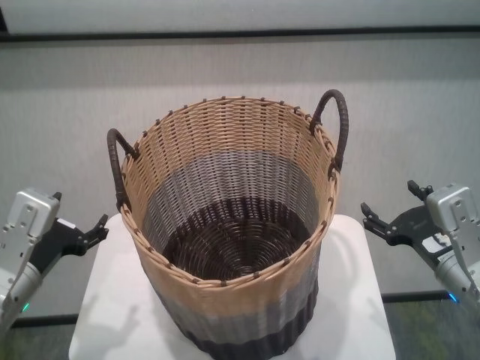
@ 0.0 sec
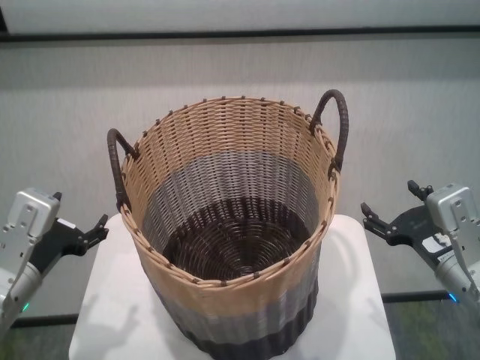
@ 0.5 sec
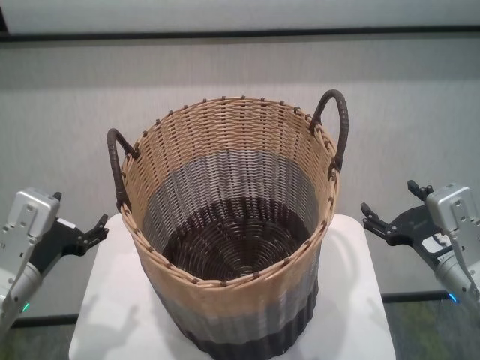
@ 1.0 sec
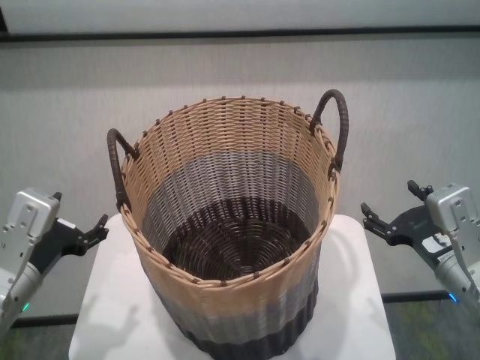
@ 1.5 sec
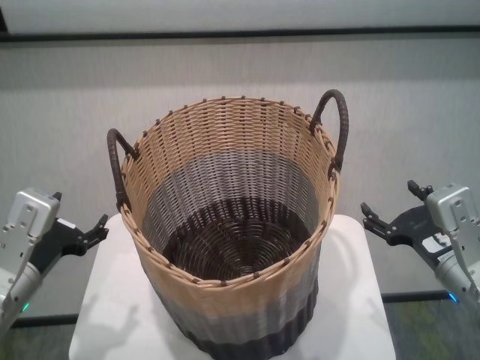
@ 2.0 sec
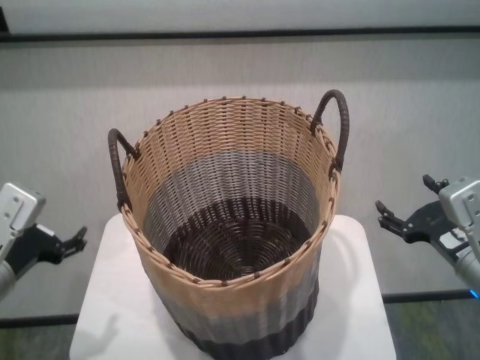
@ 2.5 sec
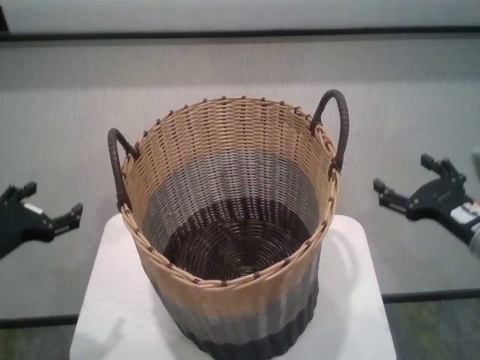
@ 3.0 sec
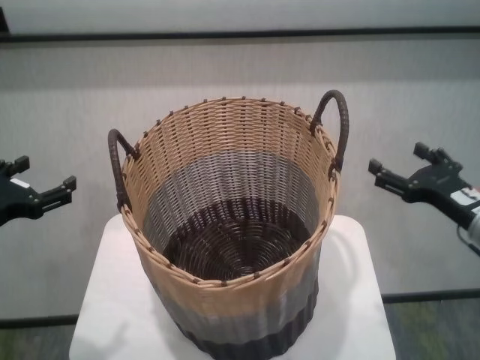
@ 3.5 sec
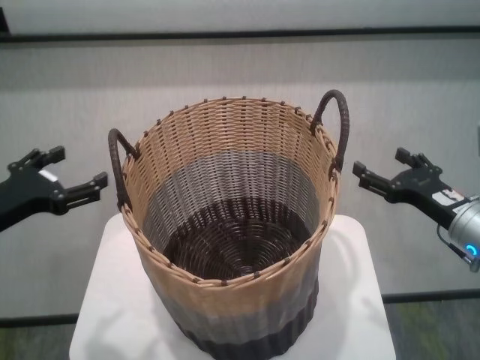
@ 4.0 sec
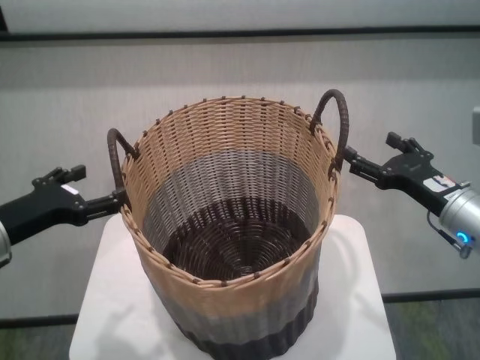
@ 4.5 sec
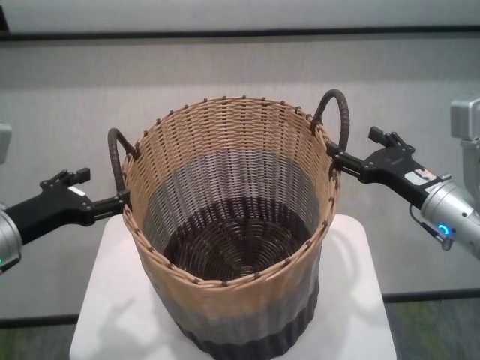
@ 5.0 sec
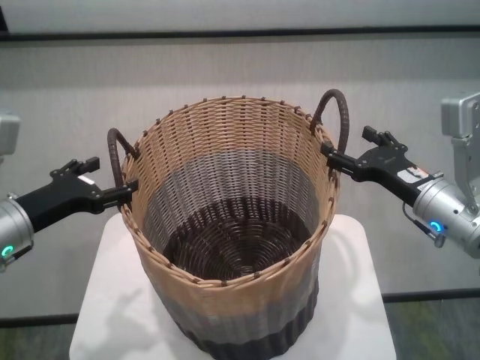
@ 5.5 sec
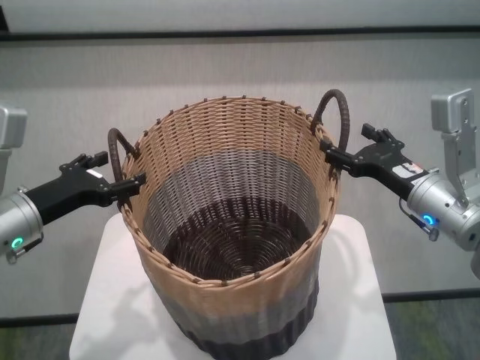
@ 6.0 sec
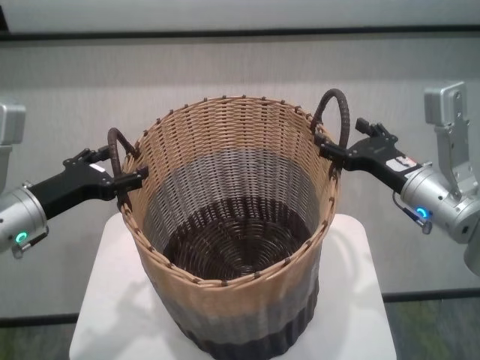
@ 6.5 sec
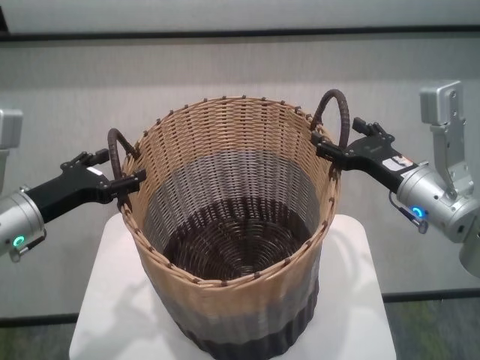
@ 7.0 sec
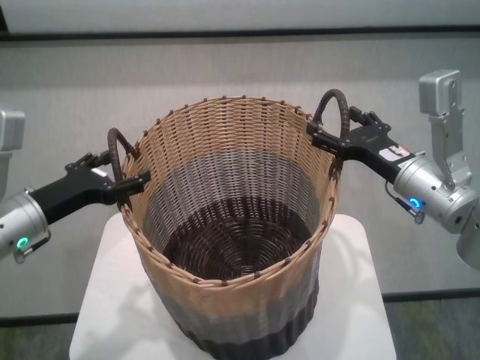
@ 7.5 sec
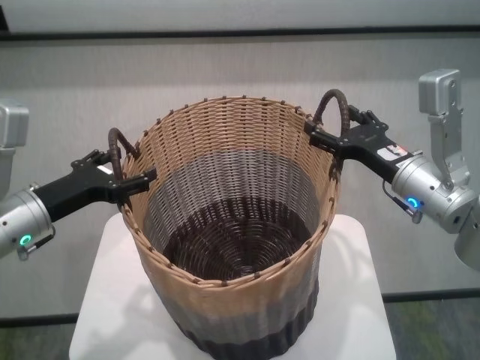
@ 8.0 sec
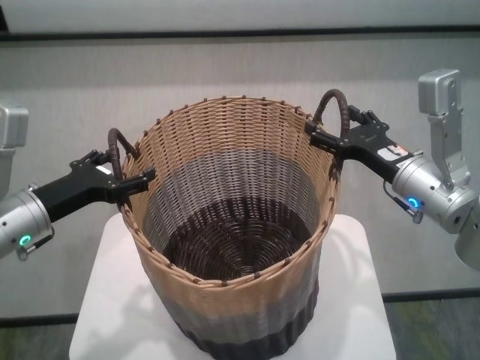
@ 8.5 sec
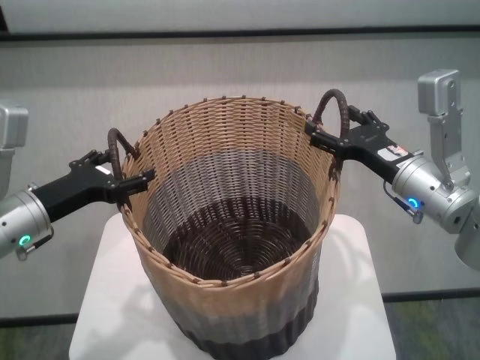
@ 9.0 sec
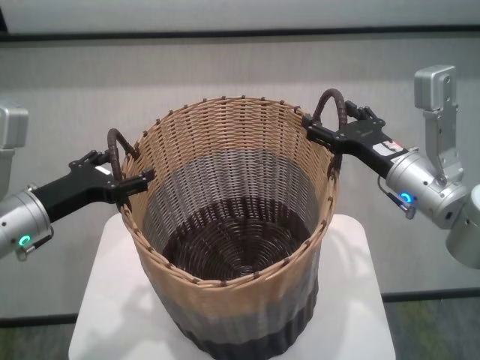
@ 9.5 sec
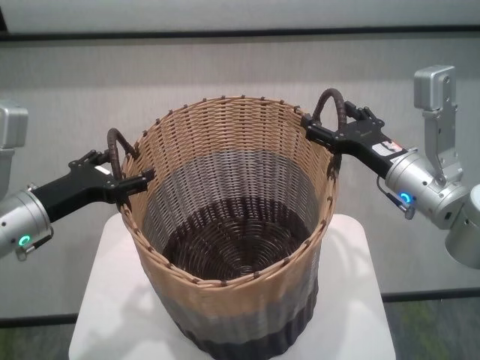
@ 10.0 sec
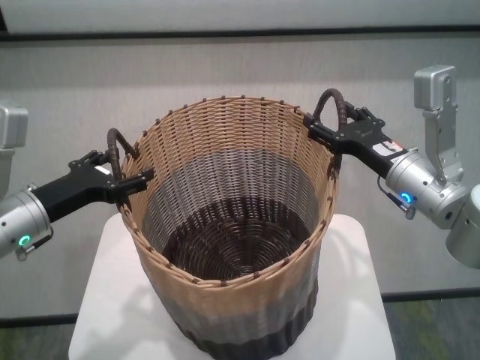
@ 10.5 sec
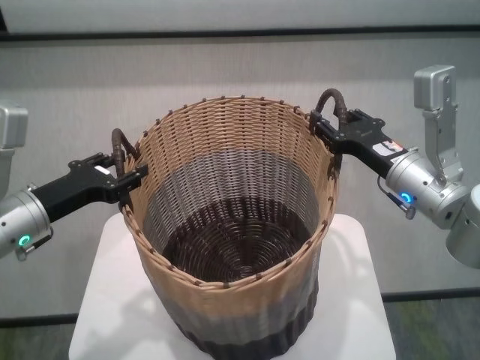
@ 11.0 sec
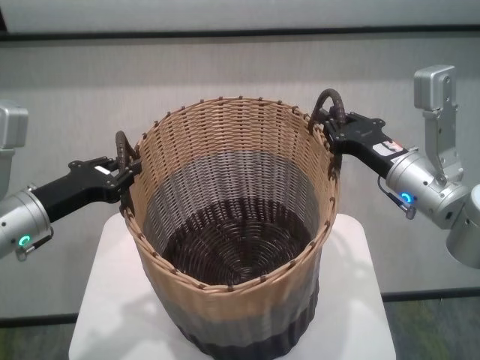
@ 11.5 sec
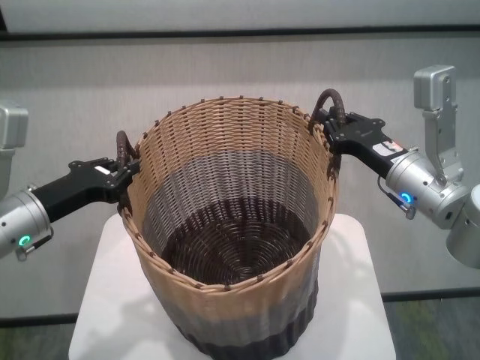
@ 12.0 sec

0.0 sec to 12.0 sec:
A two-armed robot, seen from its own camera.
Task of the whole recording: carry the clothes basket in coordination with both hands.
Step, 0.0 sec to 12.0 sec: Grasp the basket with both grippers.

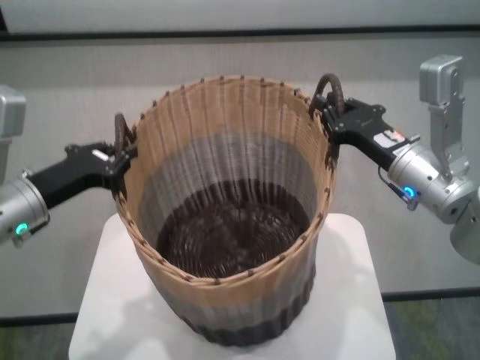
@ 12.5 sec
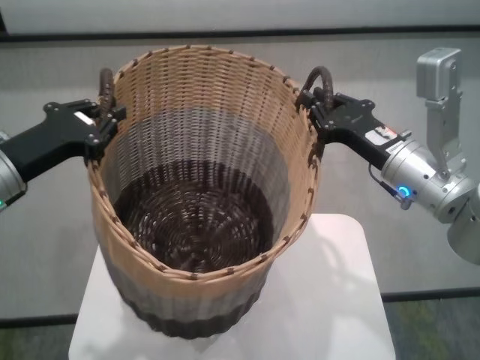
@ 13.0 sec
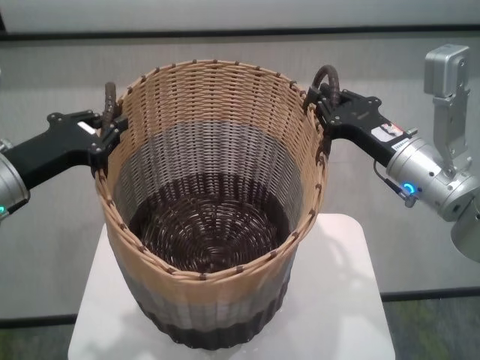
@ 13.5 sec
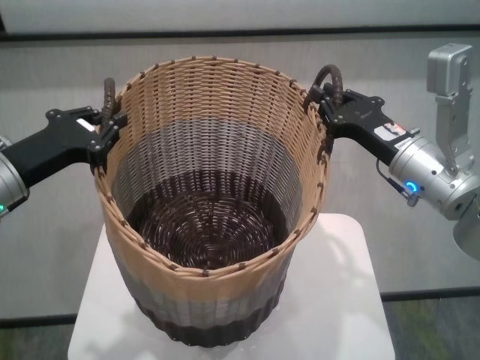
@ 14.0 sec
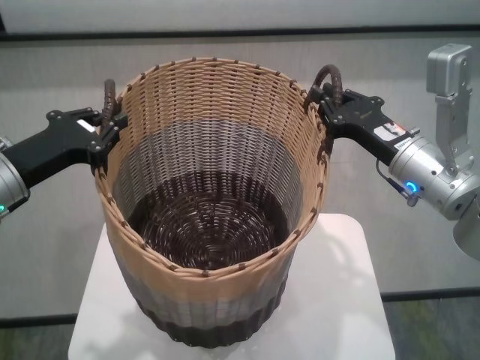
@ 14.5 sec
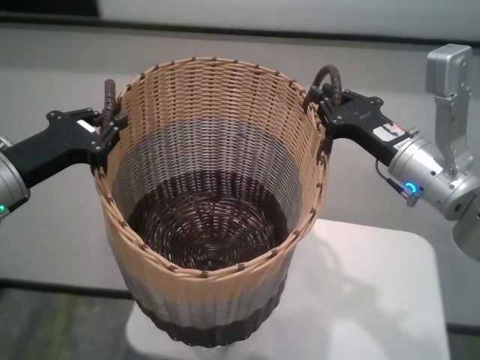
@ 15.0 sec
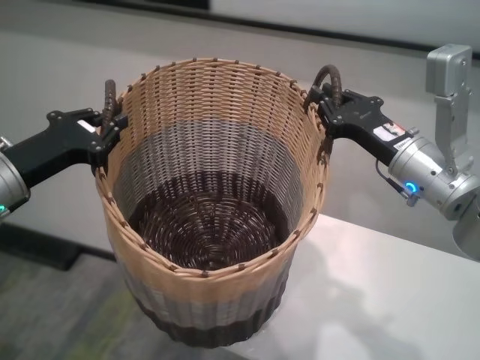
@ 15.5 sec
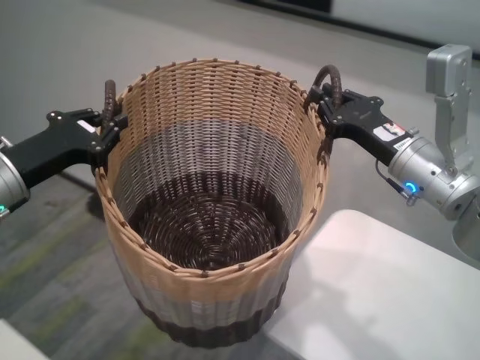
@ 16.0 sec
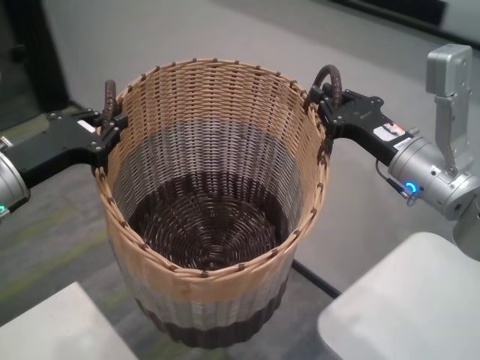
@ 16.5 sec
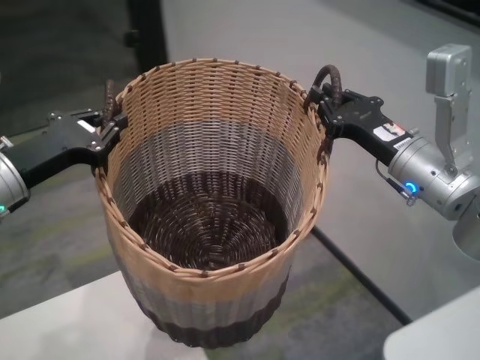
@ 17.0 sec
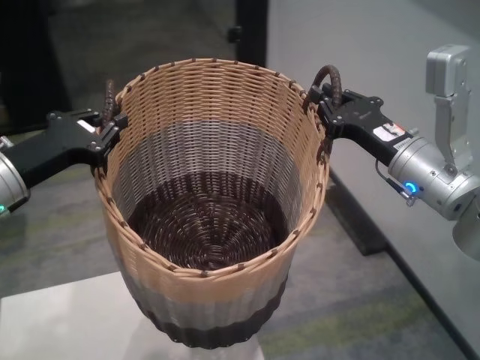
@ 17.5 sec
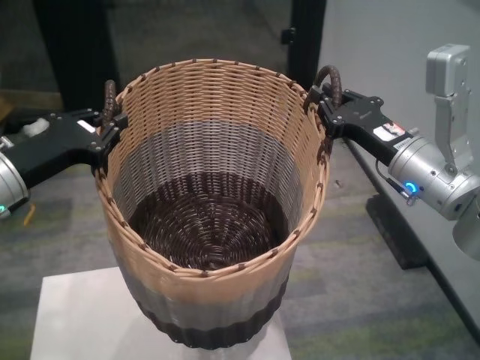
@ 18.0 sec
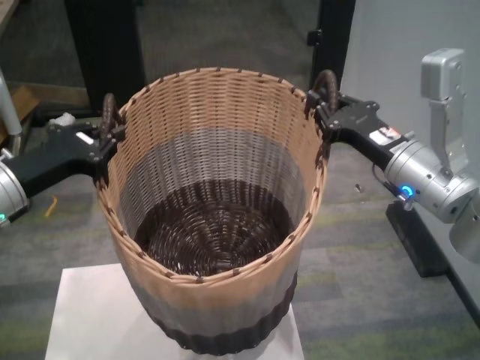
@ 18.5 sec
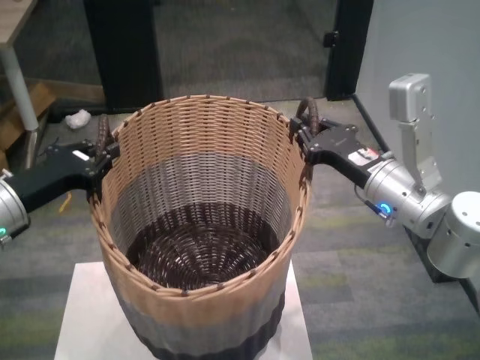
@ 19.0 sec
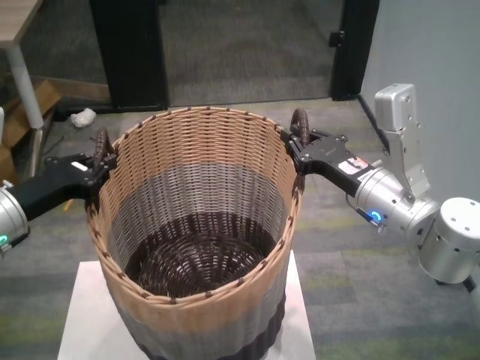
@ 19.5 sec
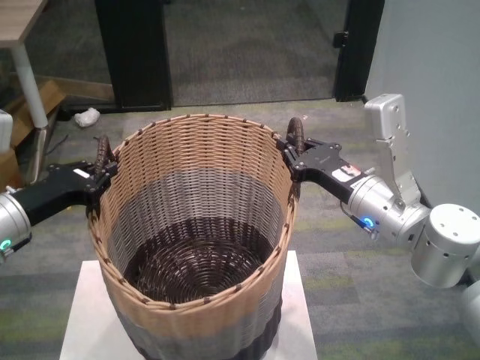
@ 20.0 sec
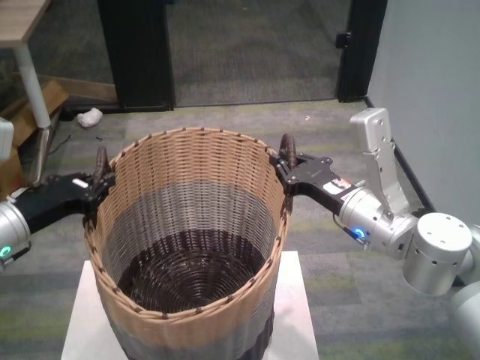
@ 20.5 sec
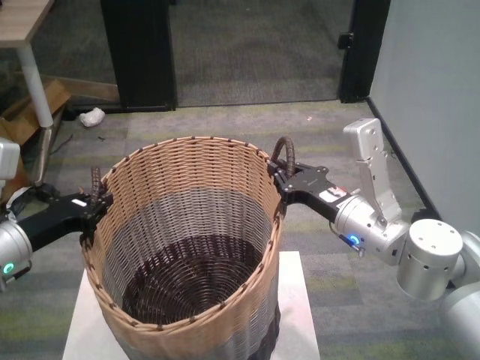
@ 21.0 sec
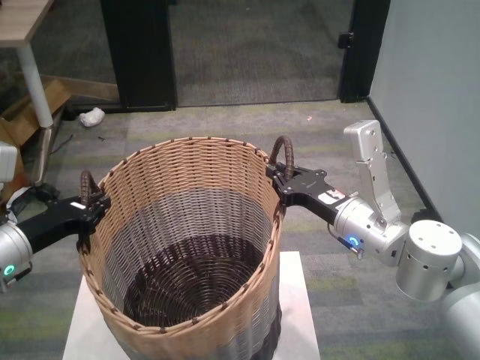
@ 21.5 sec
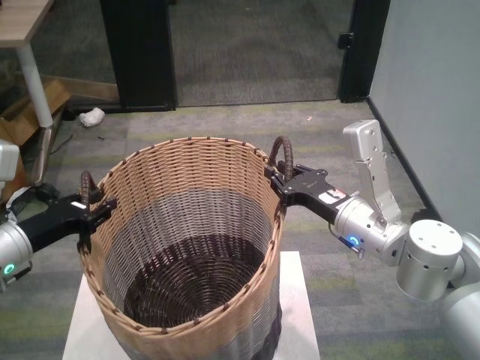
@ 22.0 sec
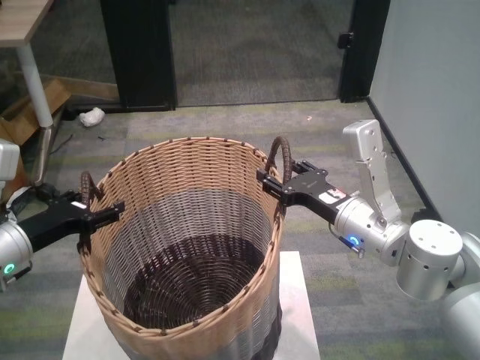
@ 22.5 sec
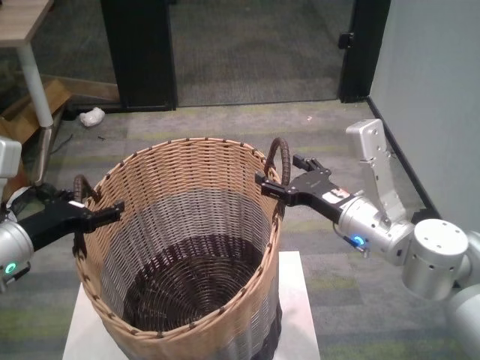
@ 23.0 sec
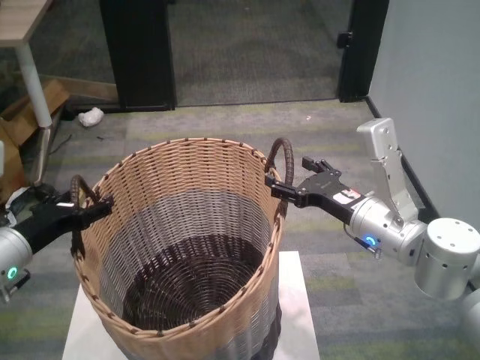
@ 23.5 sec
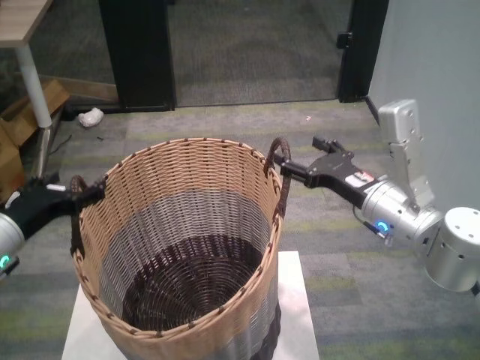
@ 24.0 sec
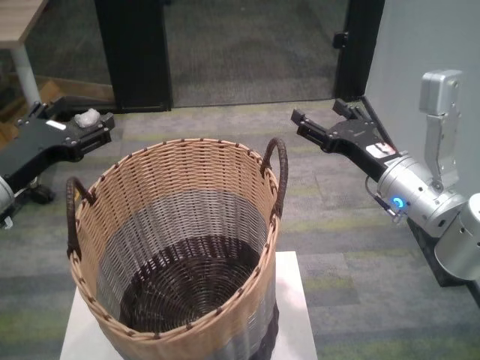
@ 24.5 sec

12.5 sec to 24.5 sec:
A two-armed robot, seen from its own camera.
Task of the whole recording: carry the clothes basket in coordination with both hands.
Step, 12.5 sec to 18.5 sec: Move the basket above the other table.
Step, 19.0 sec to 23.5 sec: Place the basket on the table with both grippers.
